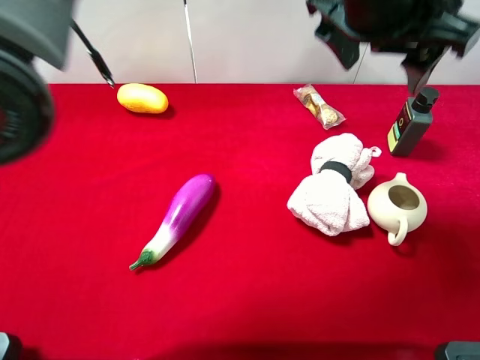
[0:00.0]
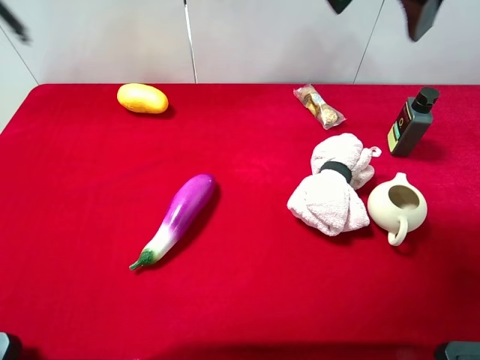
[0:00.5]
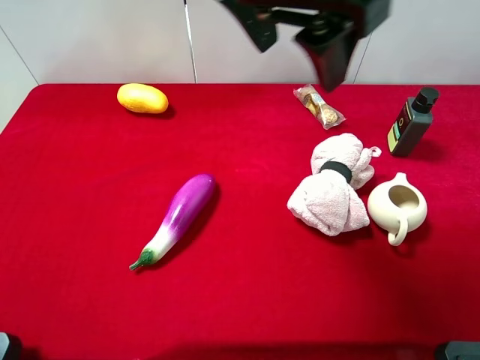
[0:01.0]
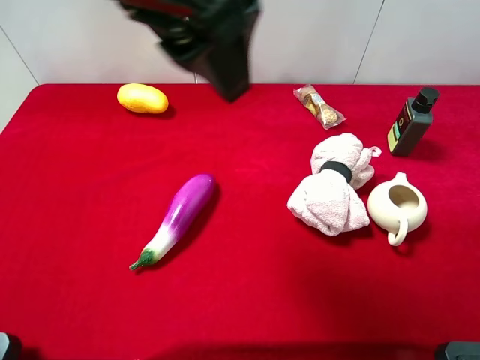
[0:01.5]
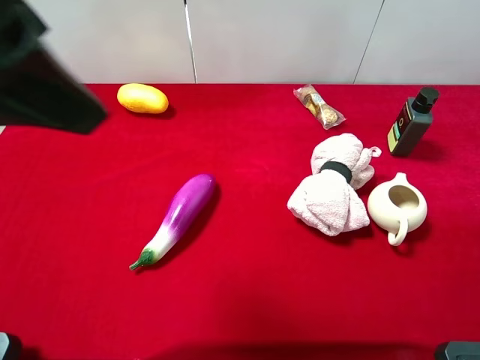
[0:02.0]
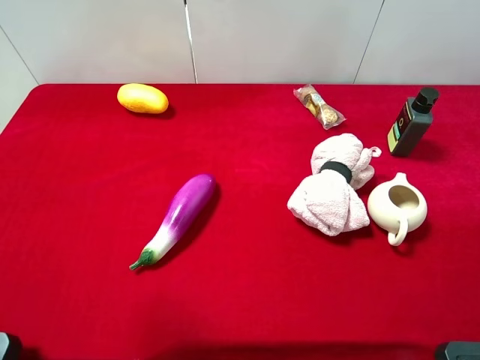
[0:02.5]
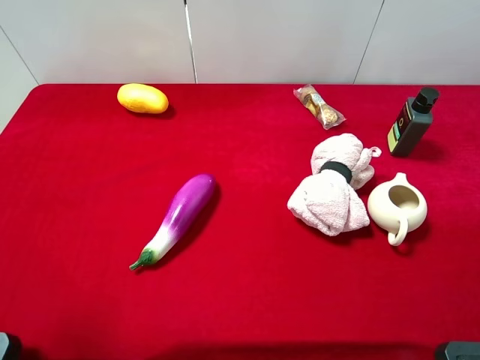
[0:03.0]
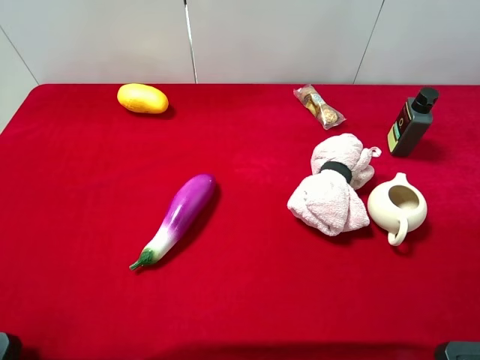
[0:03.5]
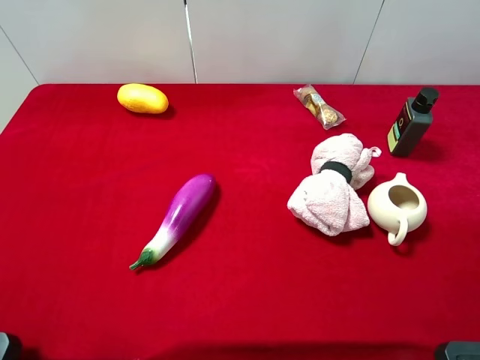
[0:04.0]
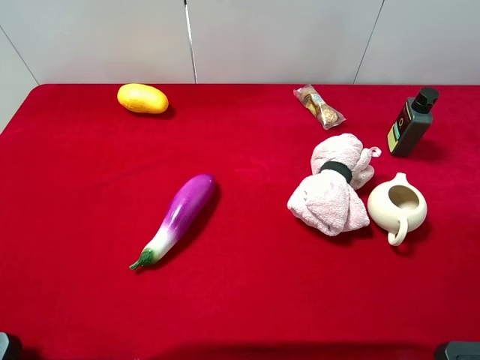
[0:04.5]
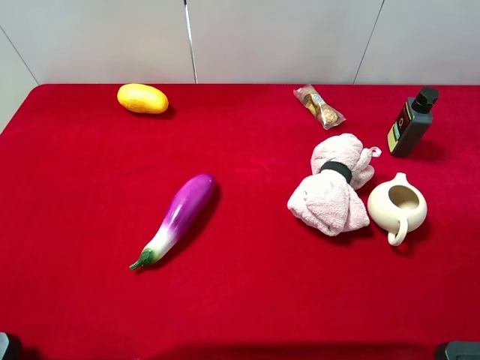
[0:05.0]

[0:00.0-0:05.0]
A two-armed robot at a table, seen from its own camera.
Task of the whole recording: the gripper move the object.
0:00.0 to 0:02.5: The left gripper heads to the left and backward, covering roughly 40 cm, and opens up.
